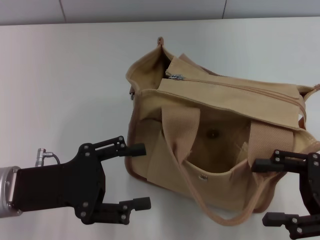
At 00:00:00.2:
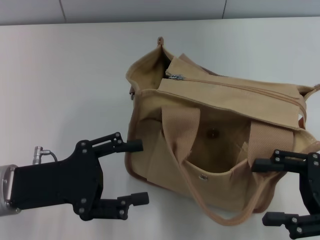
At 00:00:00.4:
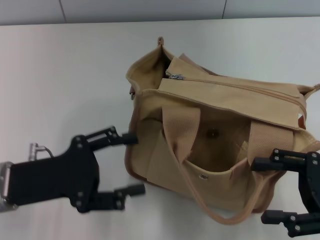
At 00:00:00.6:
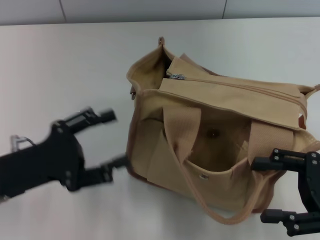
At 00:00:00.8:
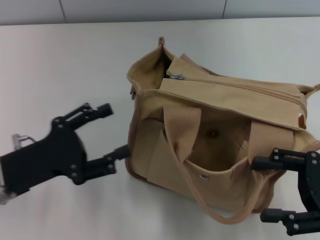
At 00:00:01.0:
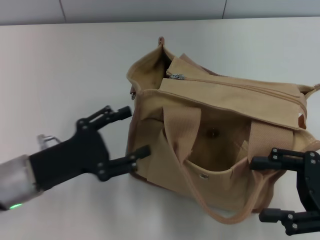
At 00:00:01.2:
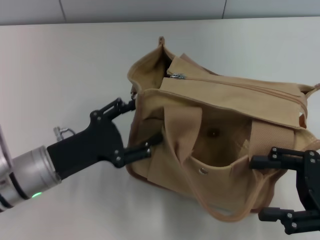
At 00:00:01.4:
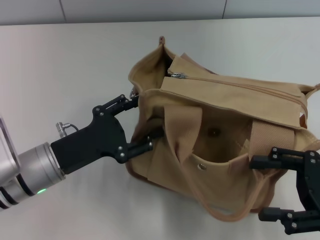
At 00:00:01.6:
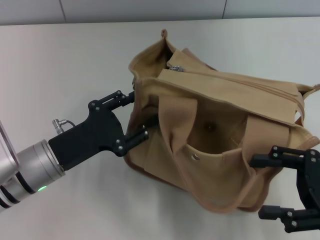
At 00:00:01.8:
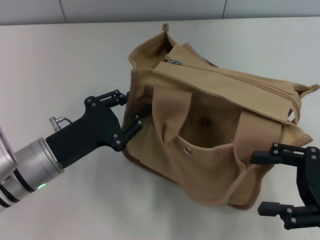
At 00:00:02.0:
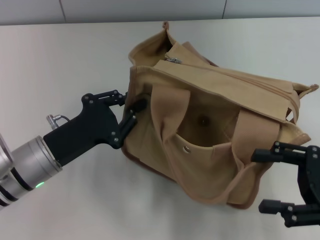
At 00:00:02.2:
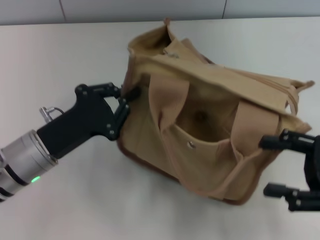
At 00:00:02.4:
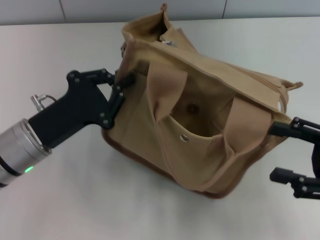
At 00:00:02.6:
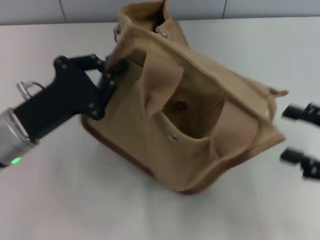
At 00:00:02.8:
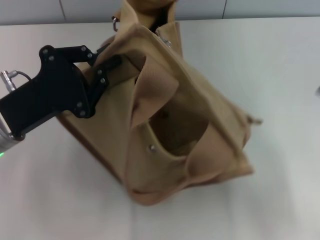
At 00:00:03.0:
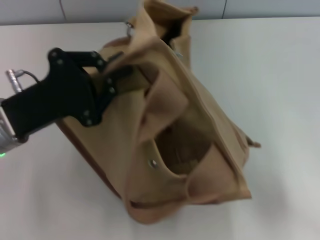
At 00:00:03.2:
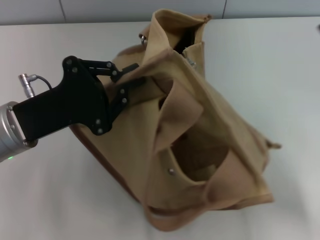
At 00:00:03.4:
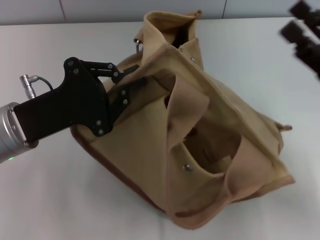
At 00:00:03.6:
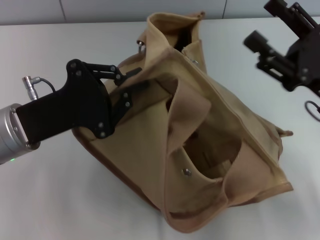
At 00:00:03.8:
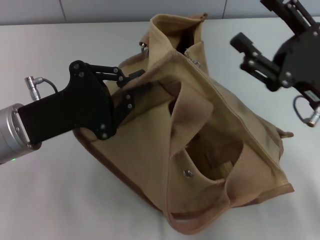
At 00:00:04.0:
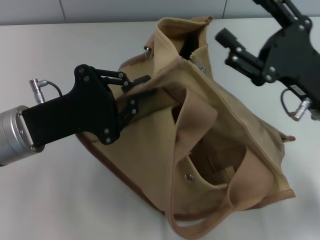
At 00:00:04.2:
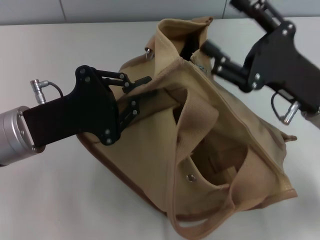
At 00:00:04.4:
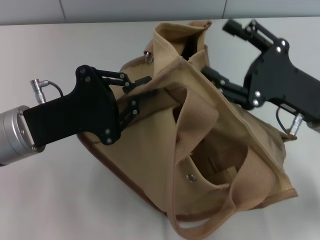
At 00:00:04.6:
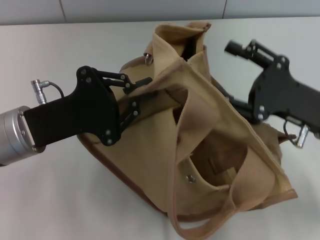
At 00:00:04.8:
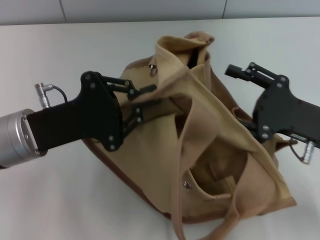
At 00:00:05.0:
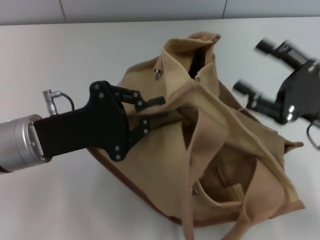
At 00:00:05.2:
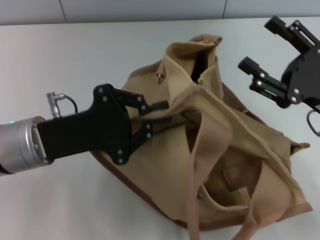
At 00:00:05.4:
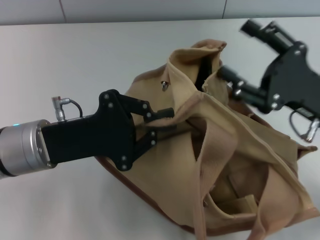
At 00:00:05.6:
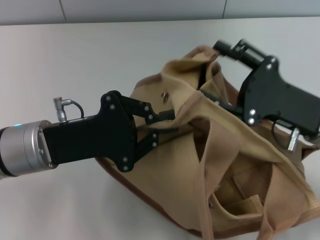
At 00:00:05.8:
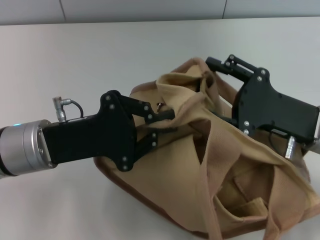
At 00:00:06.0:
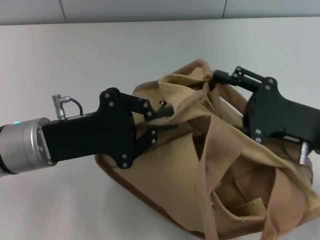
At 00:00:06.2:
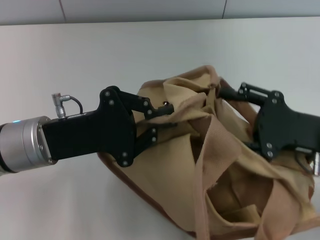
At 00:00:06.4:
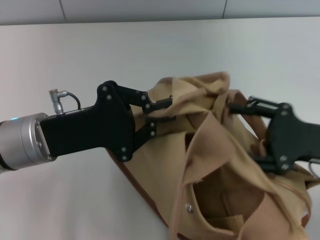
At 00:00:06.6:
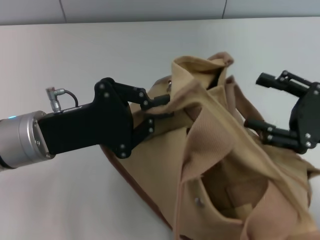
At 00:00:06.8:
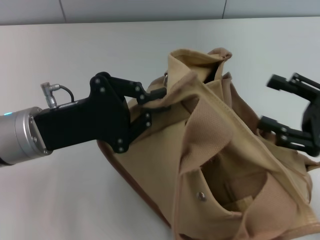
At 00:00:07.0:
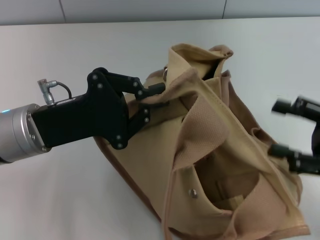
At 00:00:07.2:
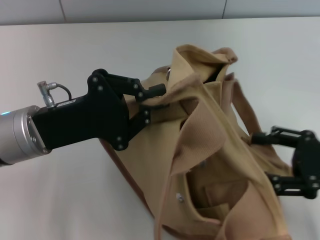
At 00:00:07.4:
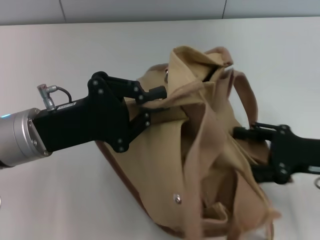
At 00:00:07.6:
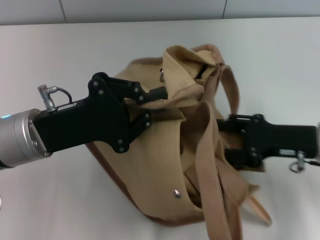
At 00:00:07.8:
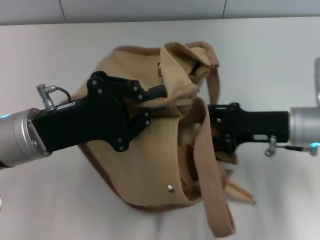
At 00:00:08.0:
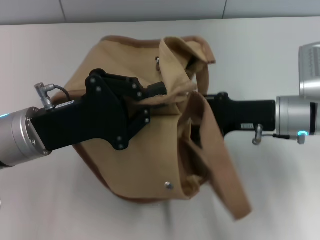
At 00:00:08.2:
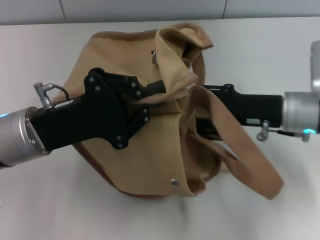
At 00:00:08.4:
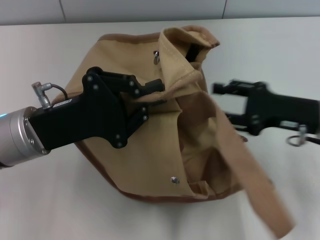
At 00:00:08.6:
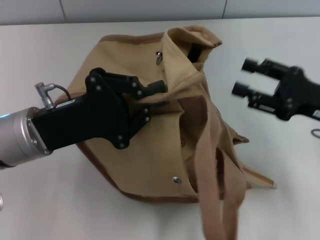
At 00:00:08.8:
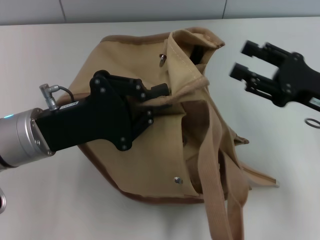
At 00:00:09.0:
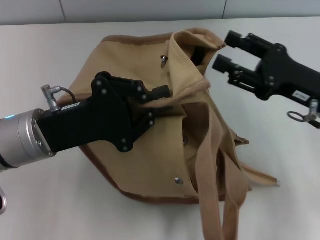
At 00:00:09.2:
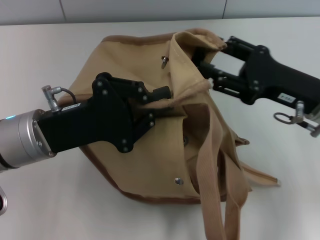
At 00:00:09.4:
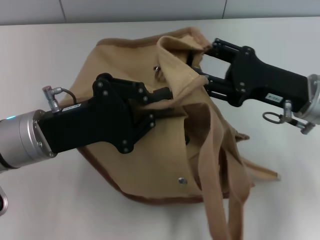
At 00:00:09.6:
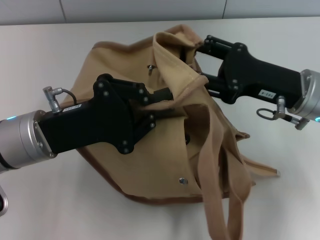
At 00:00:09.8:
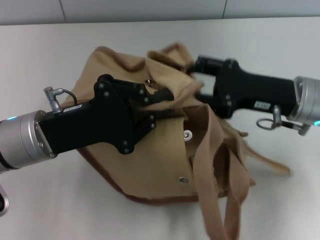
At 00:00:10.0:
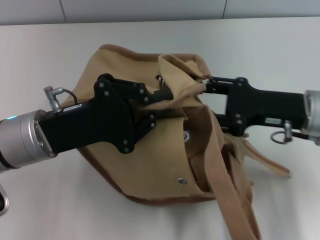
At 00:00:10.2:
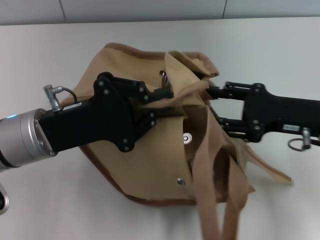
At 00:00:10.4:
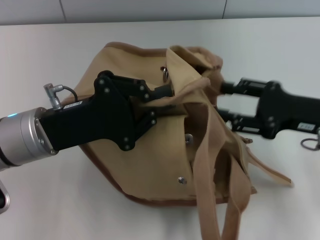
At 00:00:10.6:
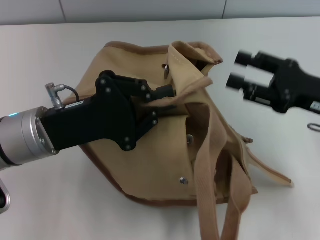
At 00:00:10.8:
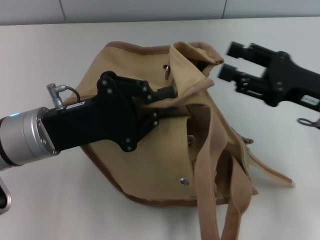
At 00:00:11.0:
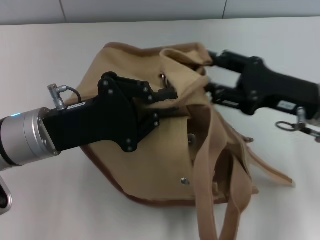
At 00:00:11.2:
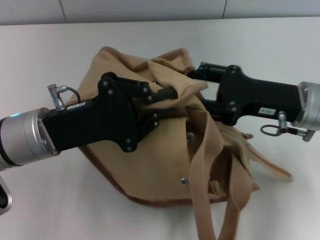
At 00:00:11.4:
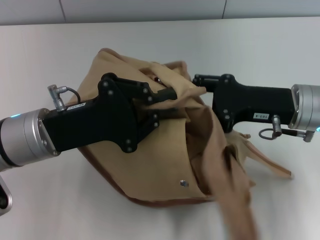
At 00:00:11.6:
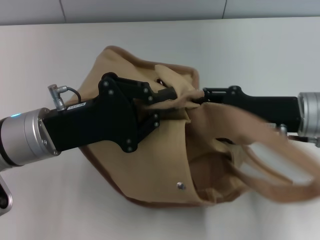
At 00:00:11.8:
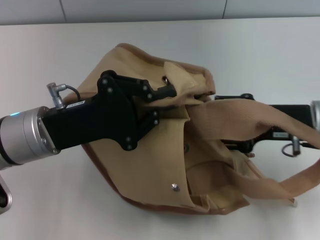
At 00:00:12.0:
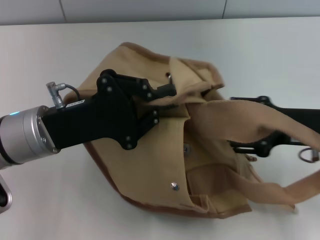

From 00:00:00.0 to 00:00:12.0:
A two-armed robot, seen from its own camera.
From 00:00:00.0 to 00:00:01.6: The left gripper ends up some 5 cm from where it was.
From 00:00:01.6 to 00:00:03.0: The left gripper is displaced upward by roughly 5 cm, and closes up.
From 00:00:03.0 to 00:00:04.4: The right gripper goes about 10 cm to the left.

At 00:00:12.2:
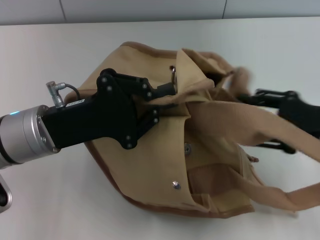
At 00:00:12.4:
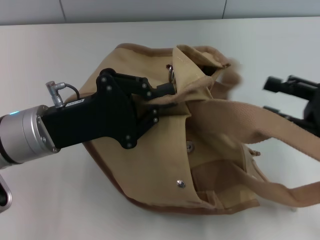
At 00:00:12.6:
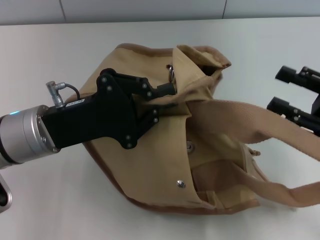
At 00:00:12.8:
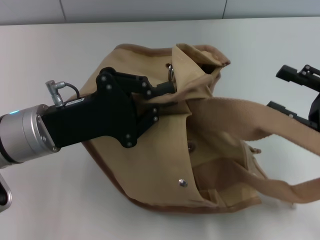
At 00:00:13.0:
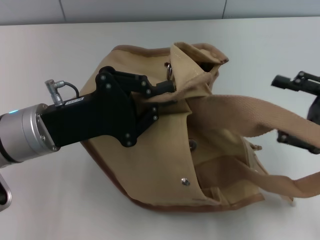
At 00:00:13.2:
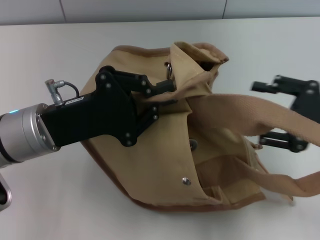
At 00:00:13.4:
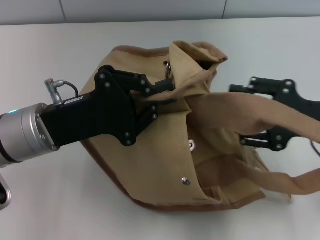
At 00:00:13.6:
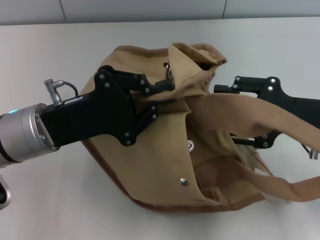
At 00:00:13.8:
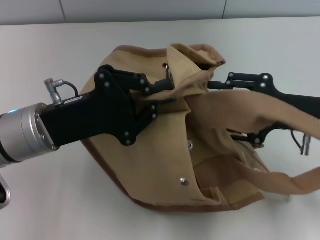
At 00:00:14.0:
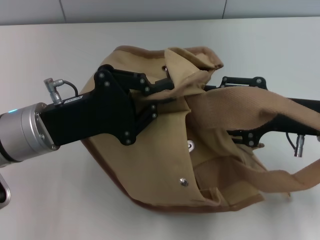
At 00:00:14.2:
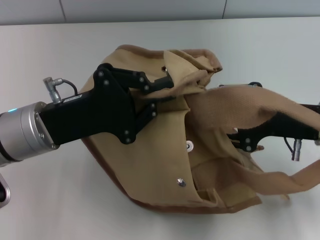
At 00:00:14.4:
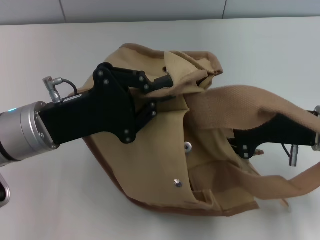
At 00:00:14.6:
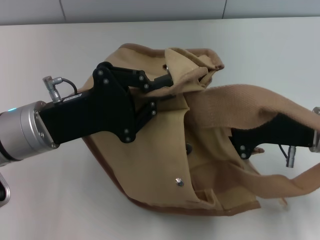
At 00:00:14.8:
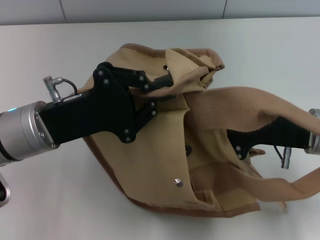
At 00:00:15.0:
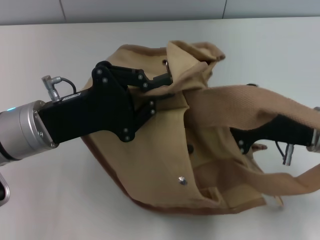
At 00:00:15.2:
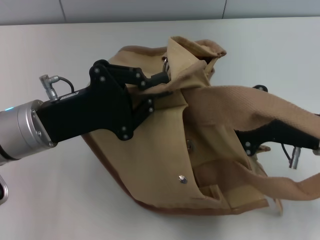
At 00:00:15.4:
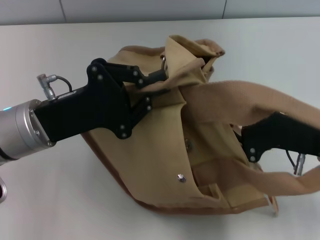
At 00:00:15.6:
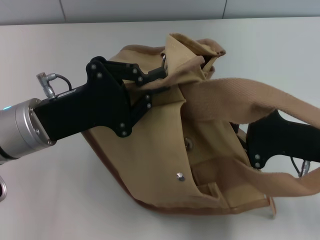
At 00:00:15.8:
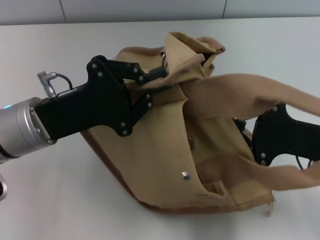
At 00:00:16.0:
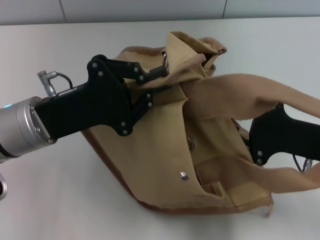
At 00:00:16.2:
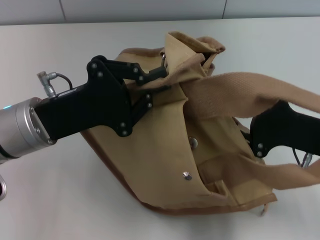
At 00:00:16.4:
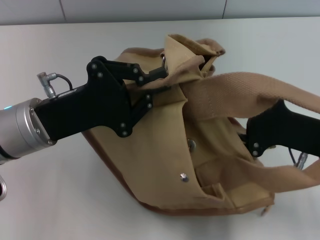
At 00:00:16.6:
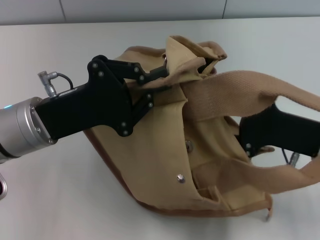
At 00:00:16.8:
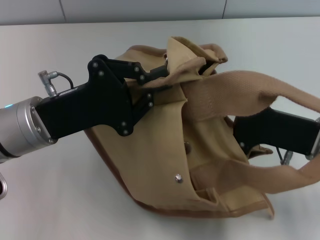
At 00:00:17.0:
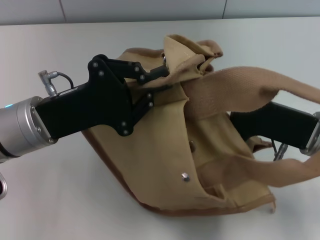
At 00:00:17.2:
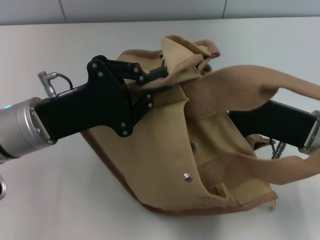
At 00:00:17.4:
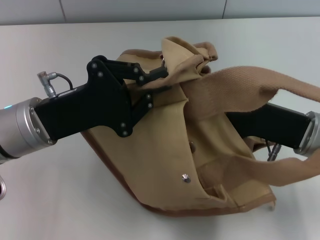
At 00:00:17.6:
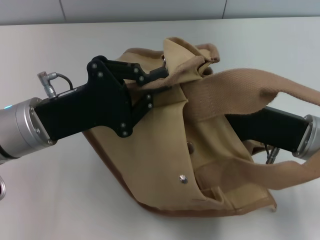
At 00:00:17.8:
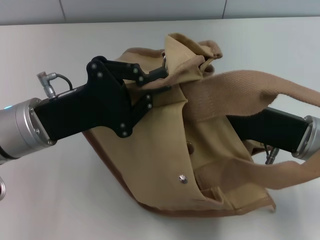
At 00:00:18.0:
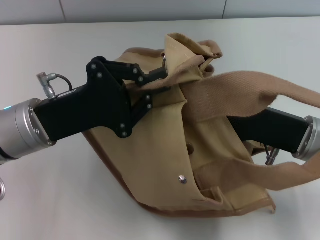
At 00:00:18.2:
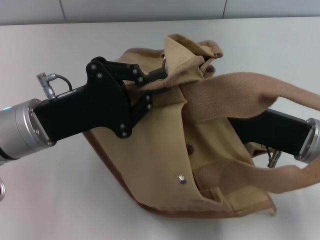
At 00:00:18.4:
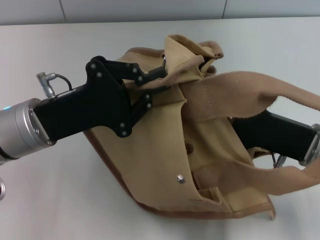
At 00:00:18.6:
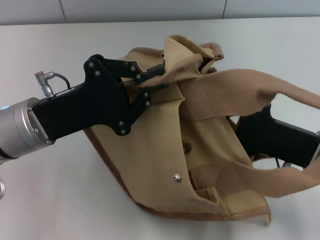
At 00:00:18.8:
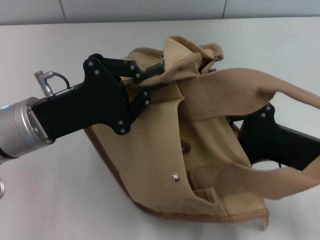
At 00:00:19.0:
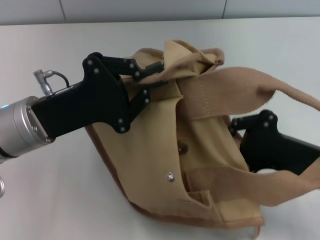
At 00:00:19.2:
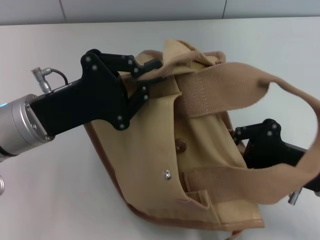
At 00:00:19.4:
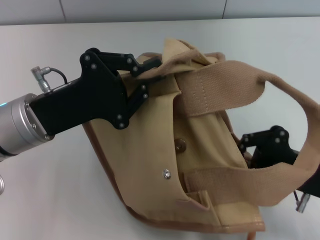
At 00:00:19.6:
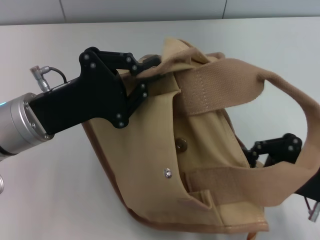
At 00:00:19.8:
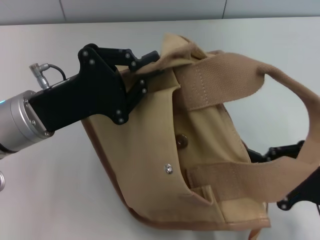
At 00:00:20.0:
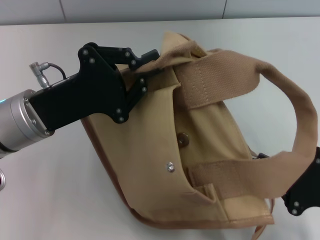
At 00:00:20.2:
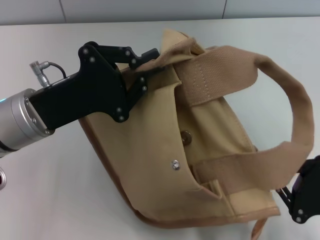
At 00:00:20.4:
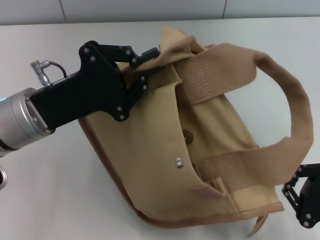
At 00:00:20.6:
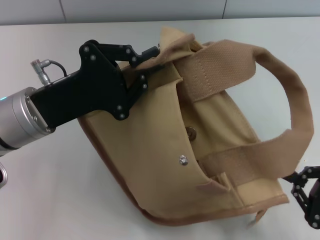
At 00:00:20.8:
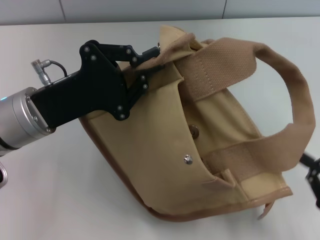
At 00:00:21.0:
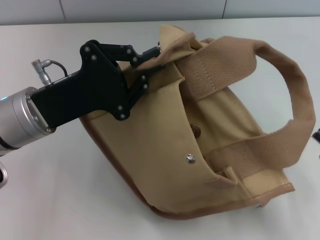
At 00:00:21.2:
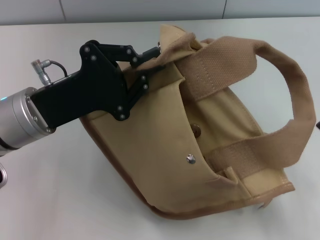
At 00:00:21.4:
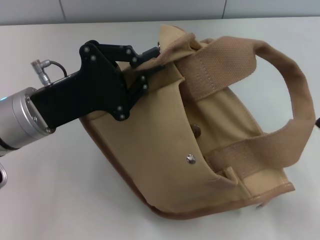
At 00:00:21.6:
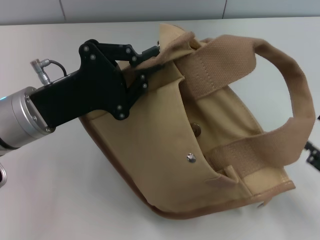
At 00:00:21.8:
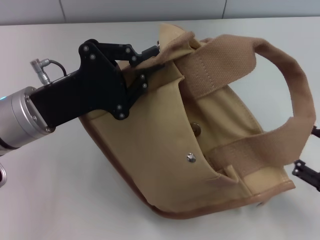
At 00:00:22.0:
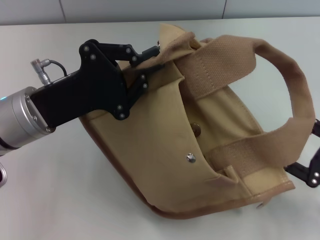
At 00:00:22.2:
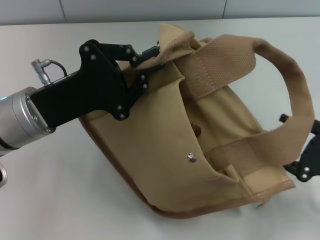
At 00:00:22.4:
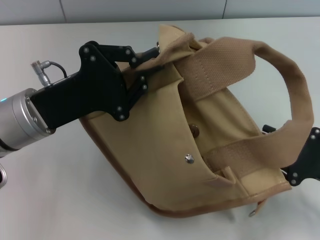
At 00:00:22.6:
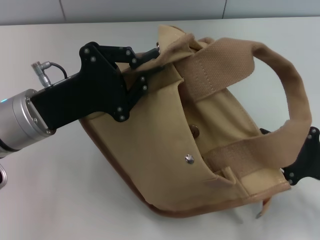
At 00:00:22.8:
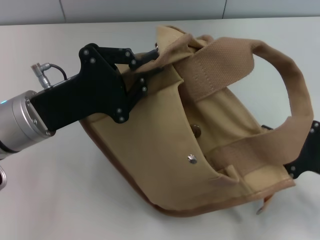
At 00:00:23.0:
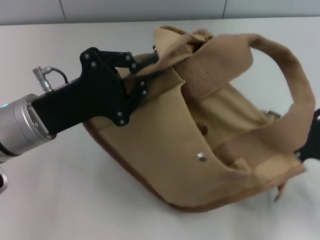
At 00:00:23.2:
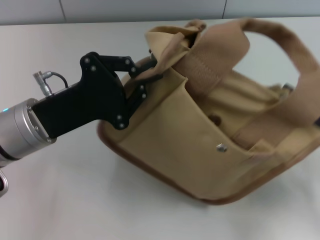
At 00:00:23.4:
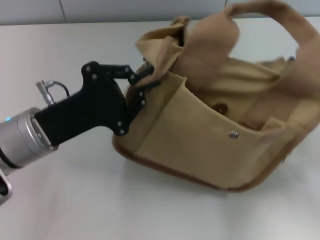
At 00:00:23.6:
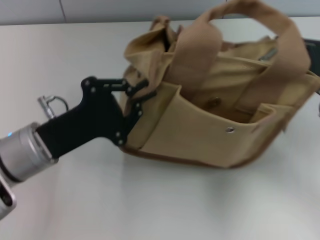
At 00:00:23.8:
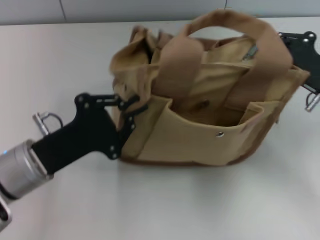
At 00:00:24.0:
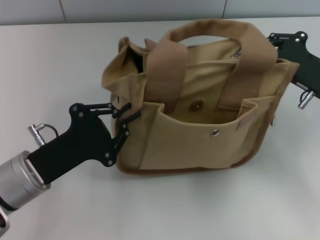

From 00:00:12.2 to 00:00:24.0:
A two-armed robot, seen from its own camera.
Step, from 00:00:12.2 to 00:00:21.0: Pull open the zipper with your right hand.
From 00:00:13.6 to 00:00:15.2: The right gripper closes up.
From 00:00:15.2 to 00:00:16.6: The right gripper opens.
From 00:00:16.6 to 00:00:18.2: The right gripper closes.
From 00:00:18.2 to 00:00:19.6: The right gripper travels backward by approximately 5 cm.
From 00:00:19.6 to 00:00:21.0: The right gripper travels backward and to the right by approximately 10 cm.
From 00:00:21.0 to 00:00:22.6: The right gripper travels forward by about 5 cm, and opens up.
From 00:00:22.6 to 00:00:24.0: The right gripper shifts approximately 10 cm forward, and closes up. The left gripper travels downward and backward by some 10 cm.
